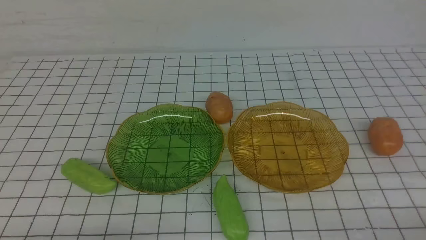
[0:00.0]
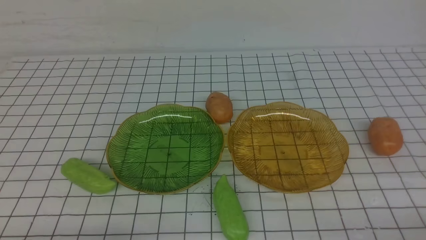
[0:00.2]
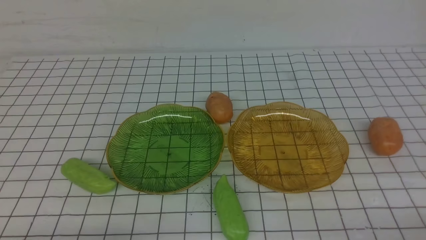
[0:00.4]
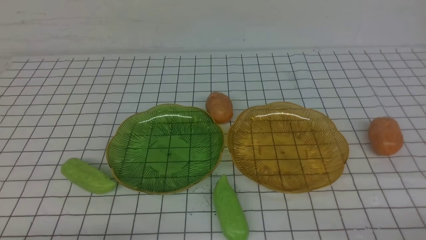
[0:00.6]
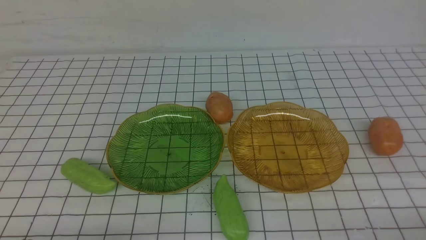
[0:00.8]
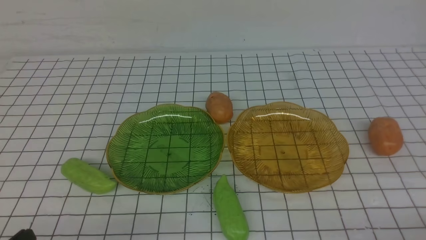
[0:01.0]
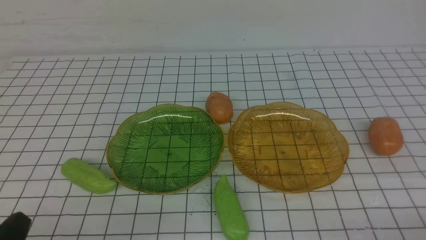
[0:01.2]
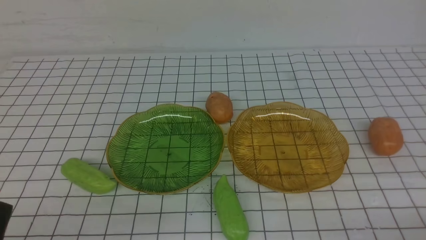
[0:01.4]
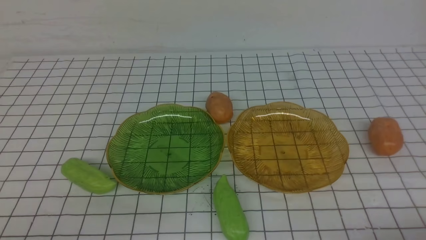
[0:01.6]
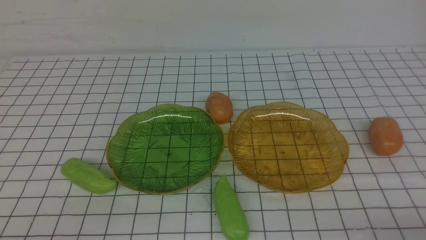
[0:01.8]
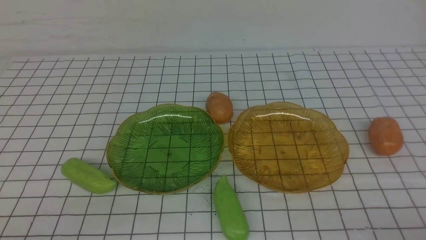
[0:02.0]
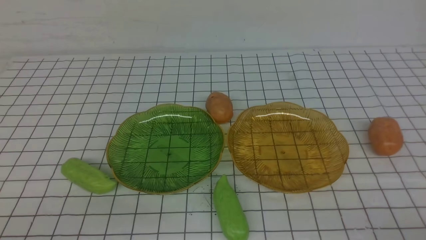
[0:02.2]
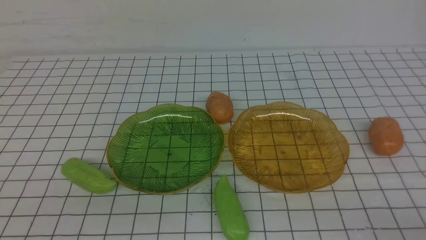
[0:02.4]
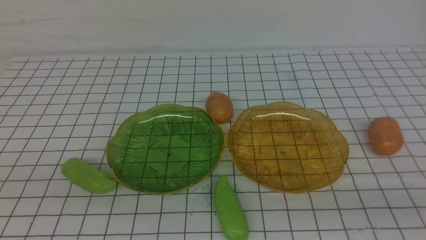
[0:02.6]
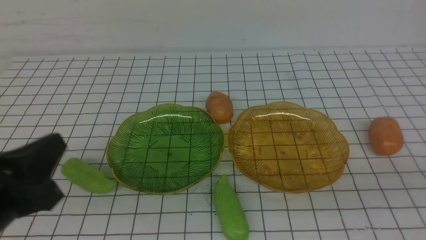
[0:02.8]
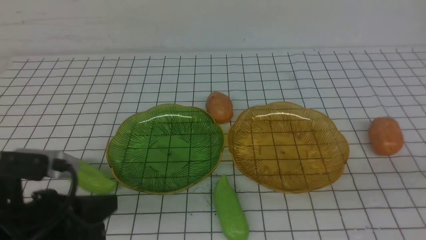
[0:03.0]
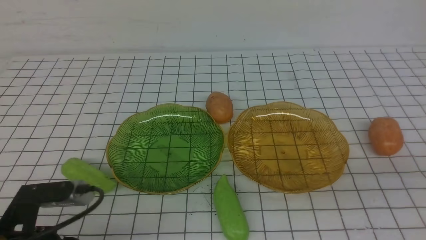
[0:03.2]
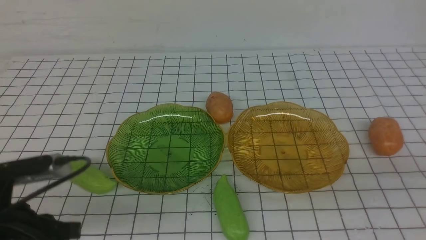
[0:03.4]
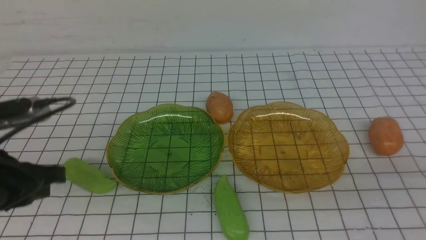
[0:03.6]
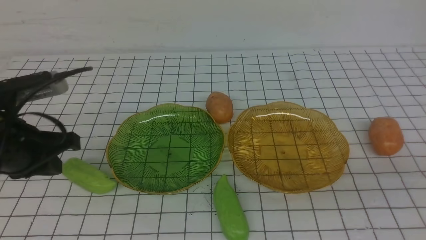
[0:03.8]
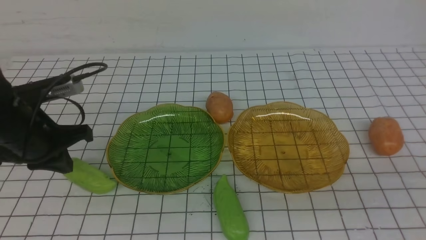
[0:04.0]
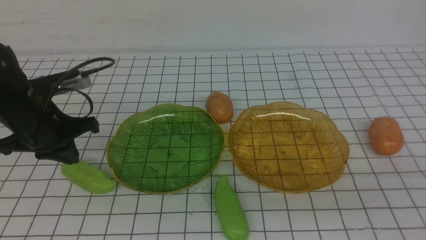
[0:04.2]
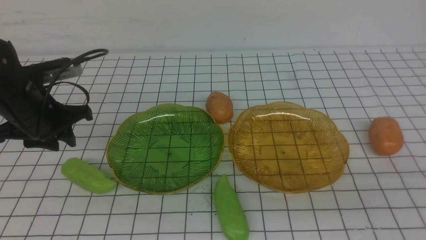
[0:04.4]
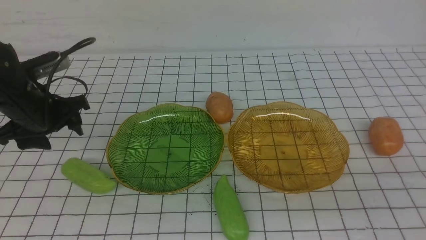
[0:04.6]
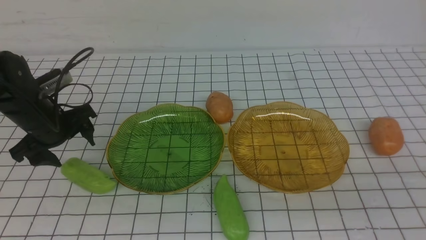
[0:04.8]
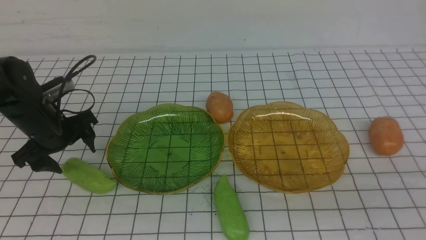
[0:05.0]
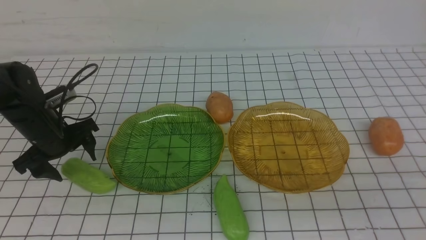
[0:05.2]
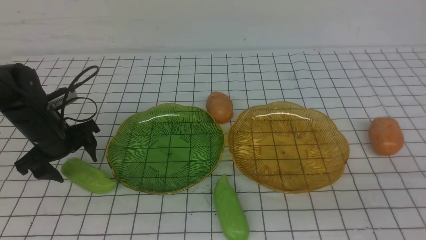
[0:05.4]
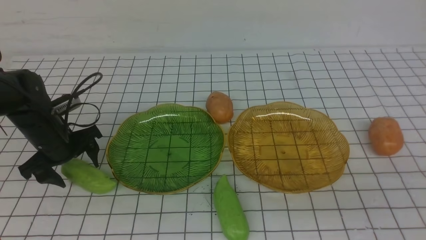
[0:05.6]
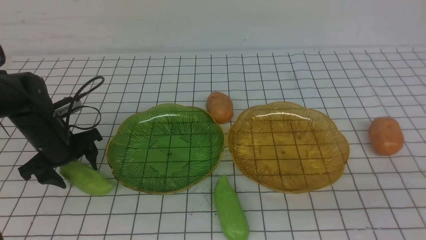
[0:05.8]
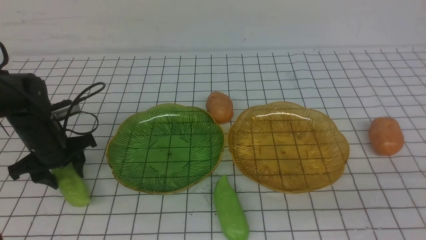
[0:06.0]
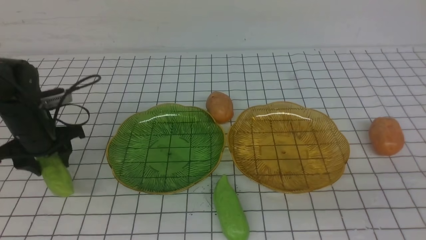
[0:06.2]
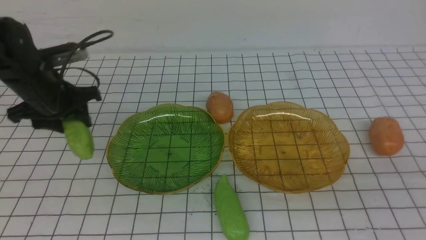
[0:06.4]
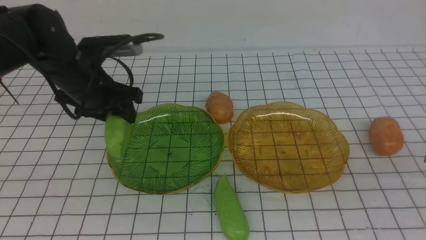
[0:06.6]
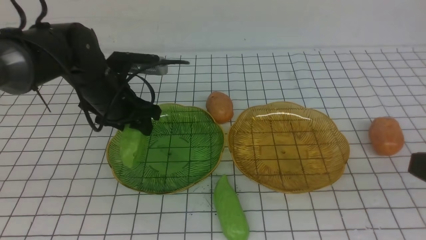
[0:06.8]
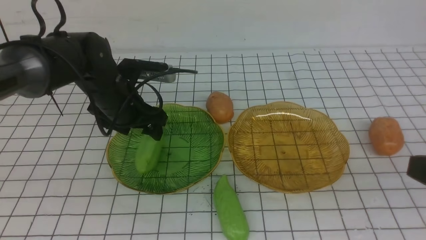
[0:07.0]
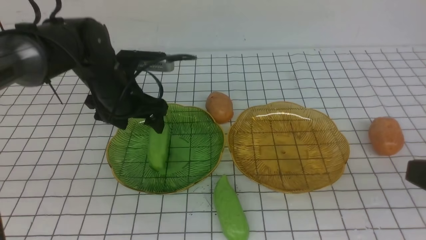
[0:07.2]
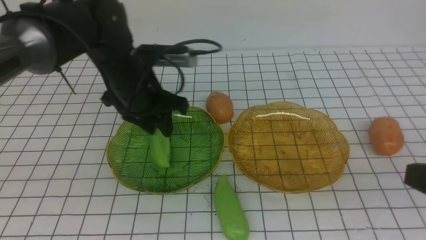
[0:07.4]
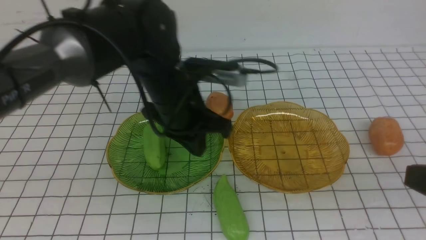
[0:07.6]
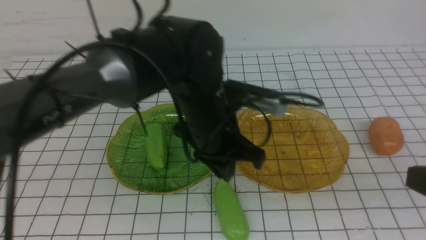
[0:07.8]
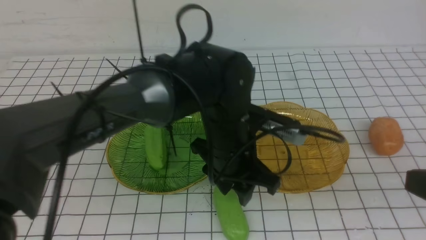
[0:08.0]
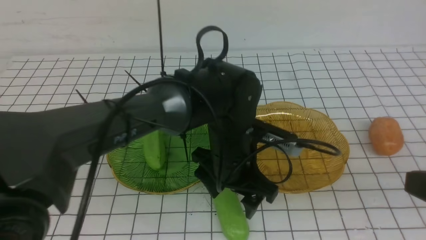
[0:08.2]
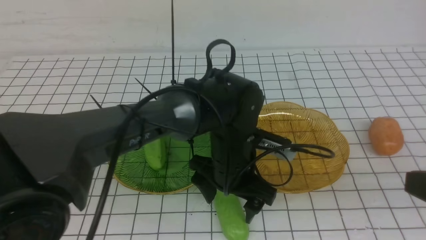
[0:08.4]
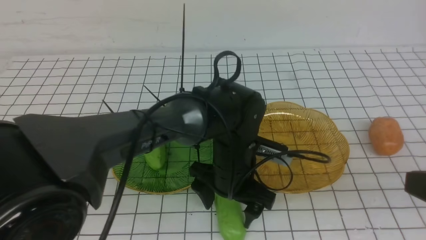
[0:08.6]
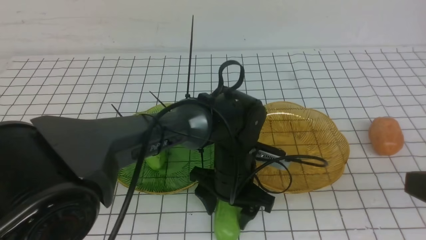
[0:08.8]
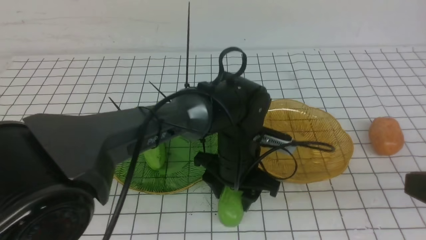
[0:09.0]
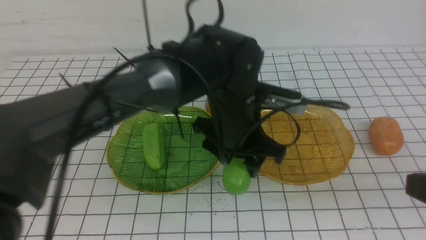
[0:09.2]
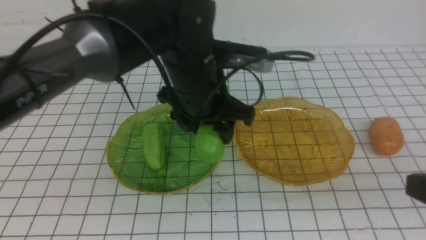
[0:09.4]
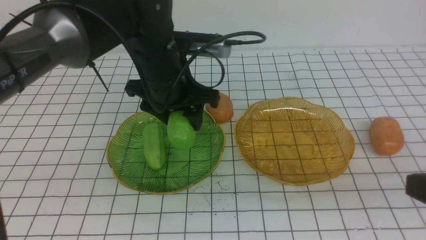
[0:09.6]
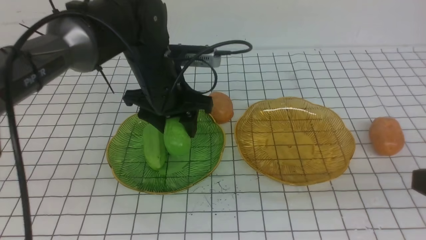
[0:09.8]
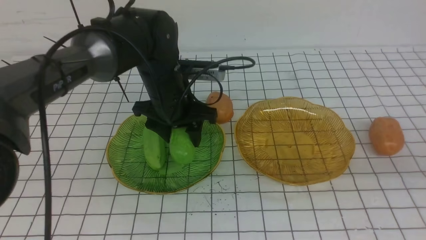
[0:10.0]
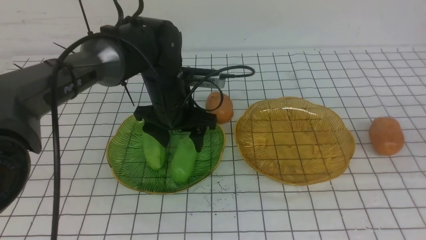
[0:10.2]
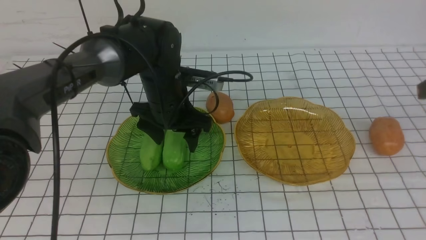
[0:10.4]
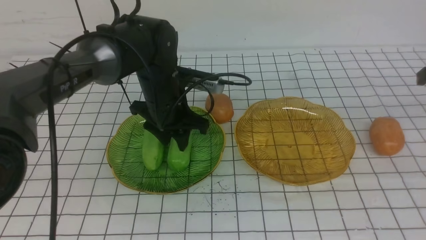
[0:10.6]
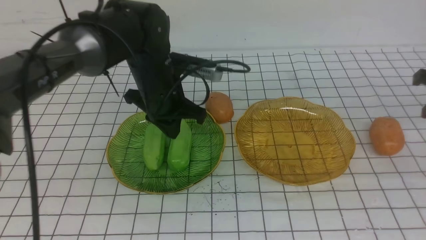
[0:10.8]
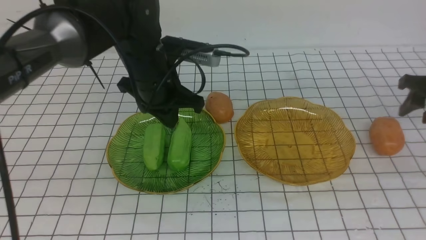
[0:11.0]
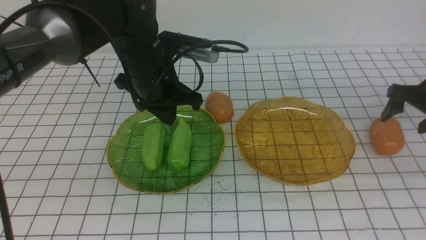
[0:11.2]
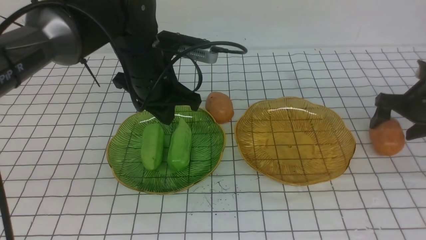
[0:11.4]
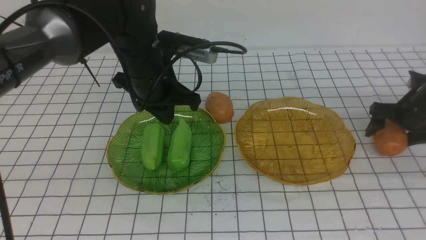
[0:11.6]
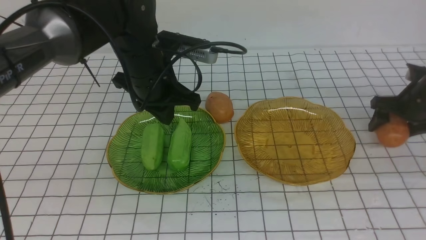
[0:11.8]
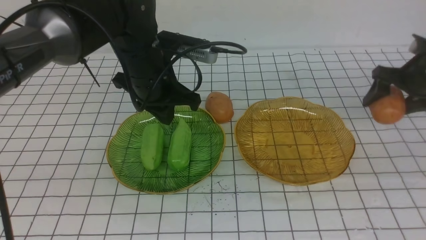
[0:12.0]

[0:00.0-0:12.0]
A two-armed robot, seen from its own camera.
Step, 0:00.0 to 0:10.4: use the left arm to grab a chayote and put it into the left plate.
0:01.6 to 0:03.0: The left gripper goes roughly 10 cm forward and to the right; the right gripper moves upward, about 15 cm.
0:03.0 to 0:04.4: The left gripper travels forward by approximately 20 cm, and opens.
0:04.4 to 0:06.0: The left gripper travels downward by about 5 cm.
0:06.0 to 0:07.6: The left gripper heads to the right and upward, covering some 25 cm, and closes its fingers.
0:07.6 to 0:09.0: The left gripper moves to the right and downward, approximately 10 cm, and opens.
0:09.0 to 0:10.4: The left gripper heads to the left and forward, covering approximately 15 cm, while the right gripper shifts approximately 20 cm forward.
0:10.4 to 0:12.0: The left gripper heads upward, covering about 5 cm, and closes its fingers. The right gripper is displaced forward and downward by about 20 cm, and opens its fingers.

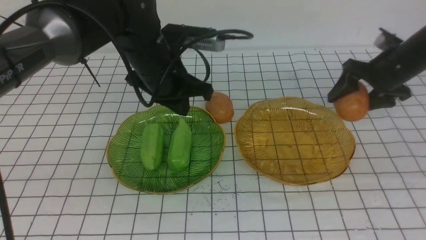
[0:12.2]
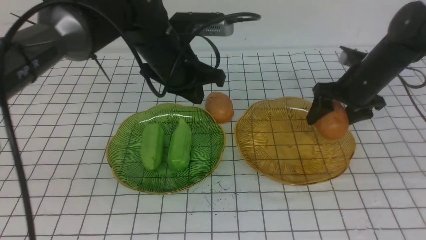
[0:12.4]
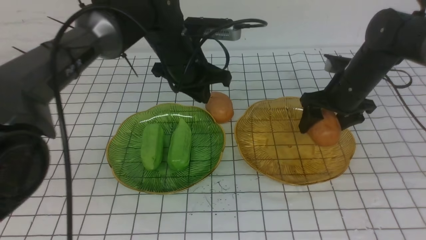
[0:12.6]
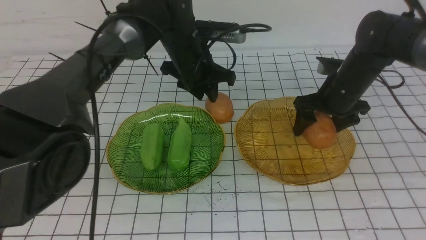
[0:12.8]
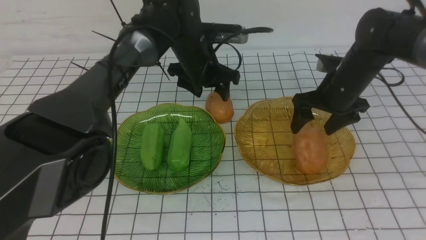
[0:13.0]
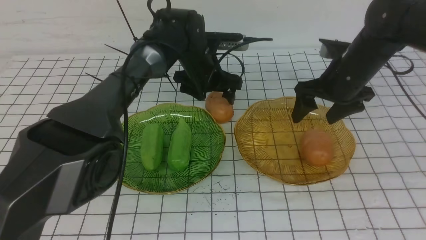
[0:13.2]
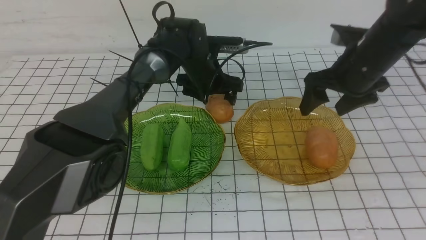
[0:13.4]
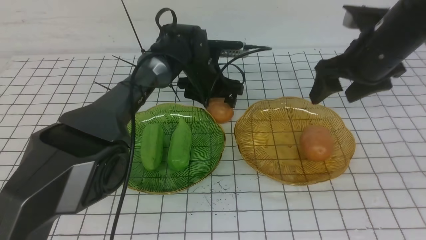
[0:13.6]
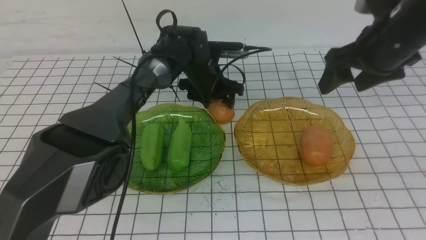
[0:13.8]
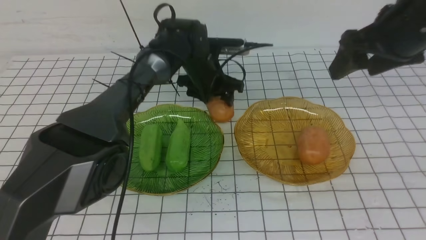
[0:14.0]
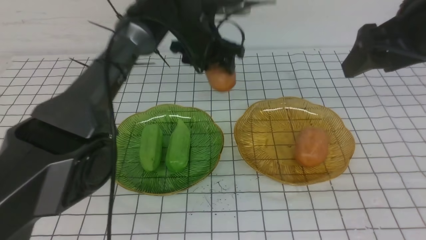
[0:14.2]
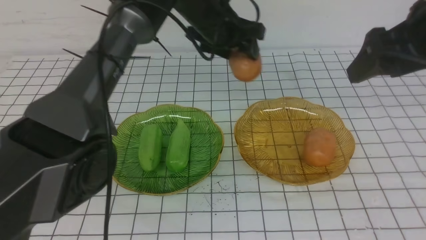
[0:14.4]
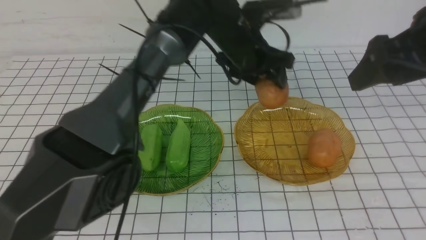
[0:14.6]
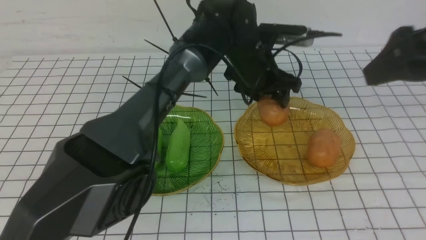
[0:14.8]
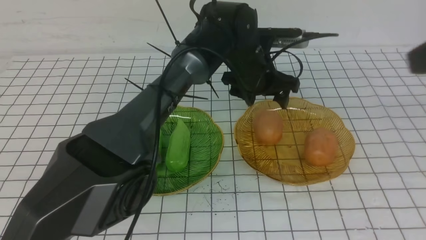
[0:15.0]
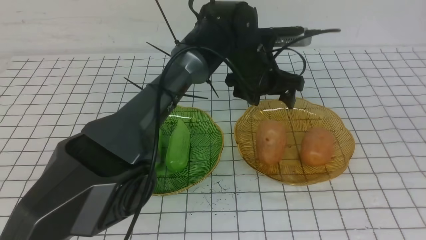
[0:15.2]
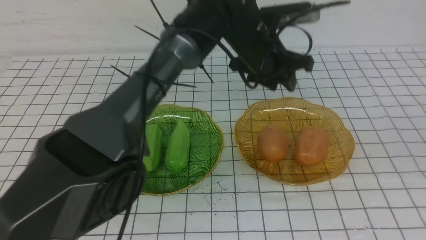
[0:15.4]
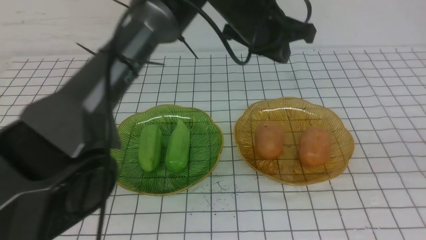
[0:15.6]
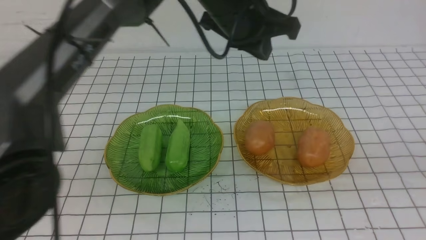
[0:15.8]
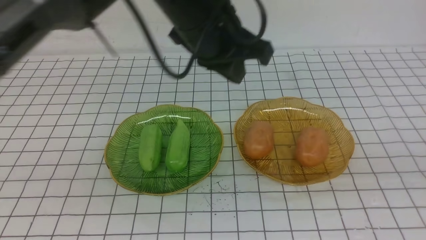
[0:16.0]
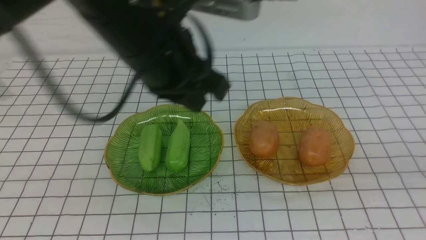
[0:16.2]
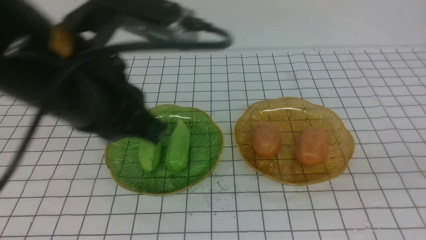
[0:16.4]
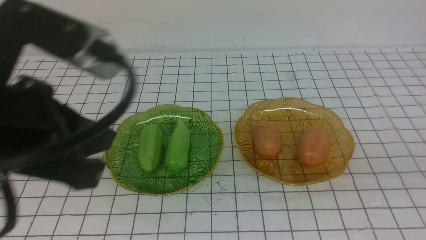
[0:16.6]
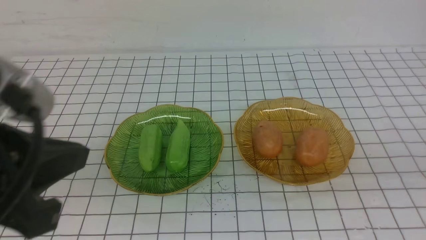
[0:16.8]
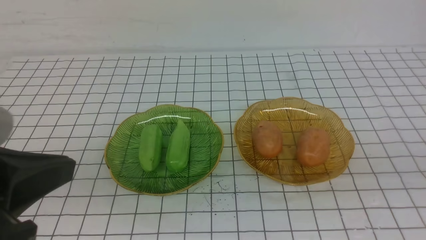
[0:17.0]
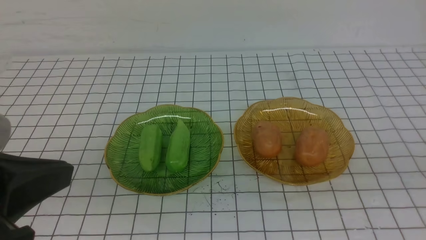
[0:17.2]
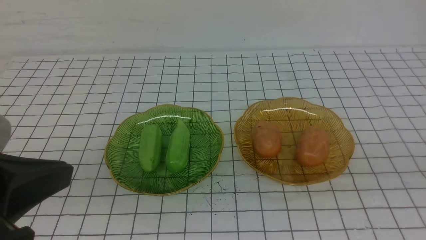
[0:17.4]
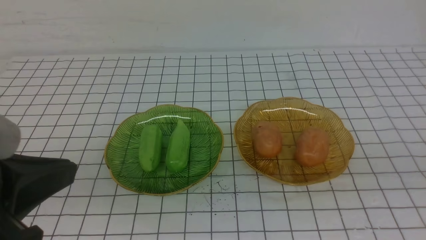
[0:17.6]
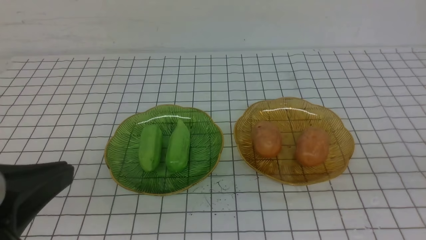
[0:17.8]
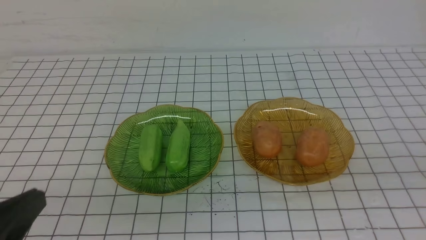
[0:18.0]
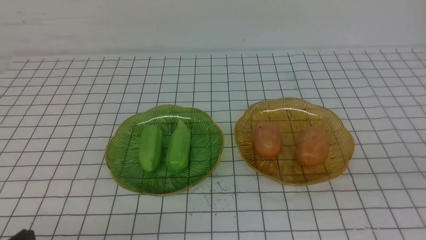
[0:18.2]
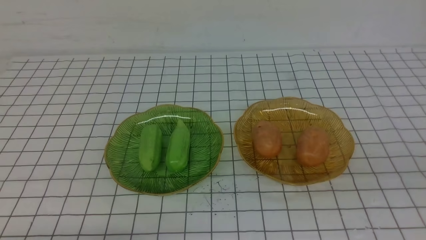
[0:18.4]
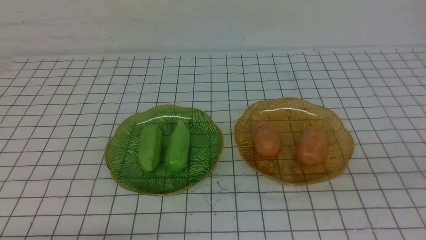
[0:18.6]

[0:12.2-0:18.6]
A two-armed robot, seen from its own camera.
Step, 0:13.2 to 0:15.2: Grab a potato with your left arm and put it on the right plate.
0:12.2 to 0:13.8: The right gripper moves upward, backward and to the left, roughly 15 cm, while the left gripper is displaced forward, downward and to the right by approximately 15 cm, and opens up.
0:13.8 to 0:15.4: The right gripper moves backward and upward, about 35 cm, and closes; the left gripper goes up and down, some 10 cm each way, reversing 2 times, and closes up.
0:15.4 to 0:17.0: The right gripper is displaced downward by approximately 10 cm. The left gripper shifts roughly 40 cm backward and to the left, and closes.
0:17.0 to 0:18.6: The left gripper shifts about 20 cm downward.
